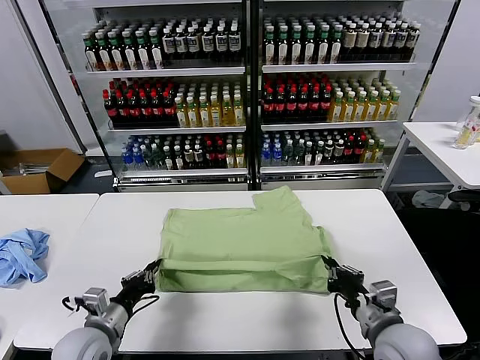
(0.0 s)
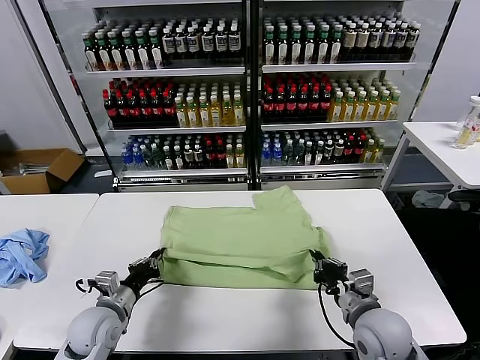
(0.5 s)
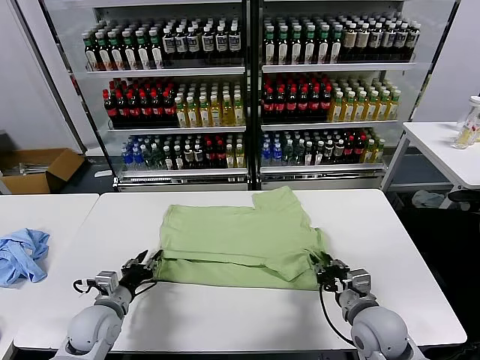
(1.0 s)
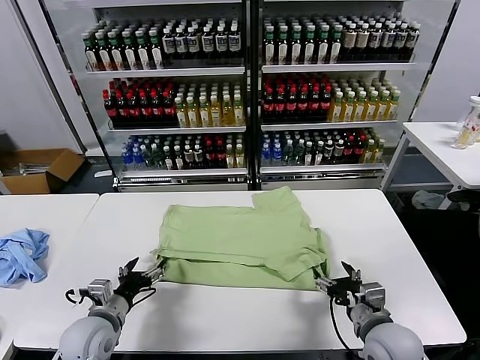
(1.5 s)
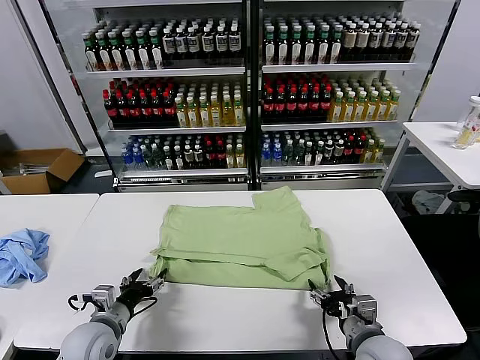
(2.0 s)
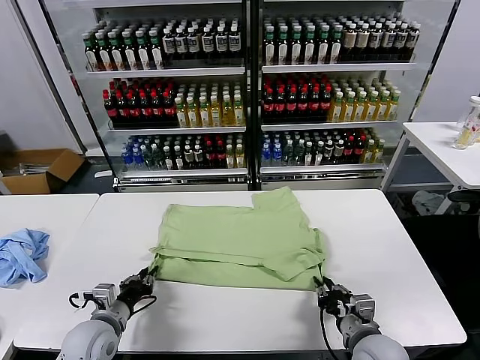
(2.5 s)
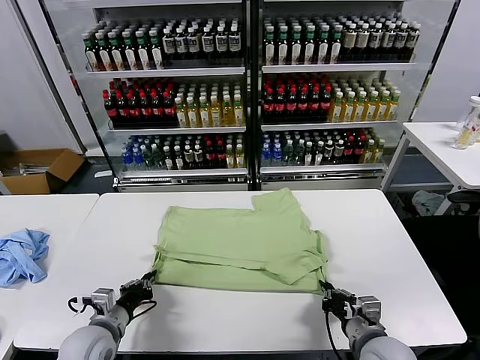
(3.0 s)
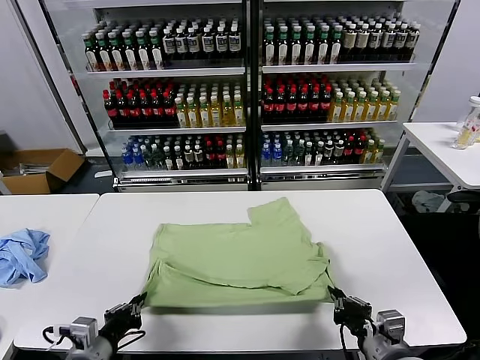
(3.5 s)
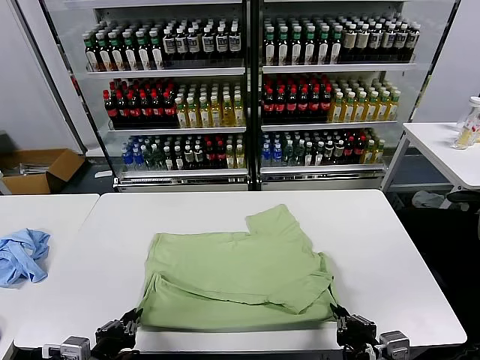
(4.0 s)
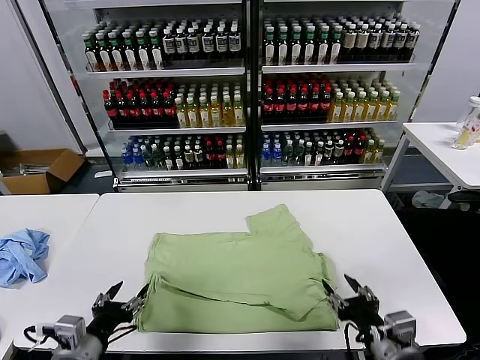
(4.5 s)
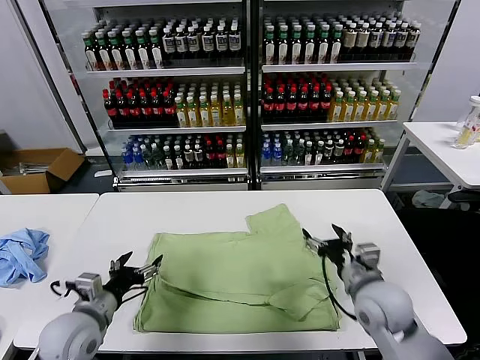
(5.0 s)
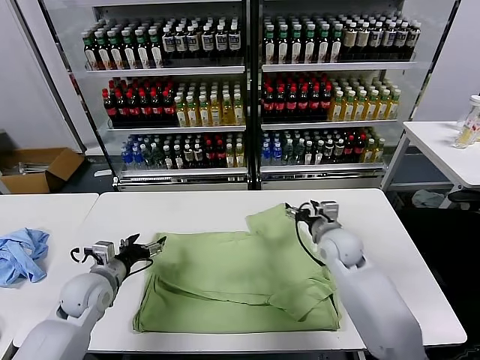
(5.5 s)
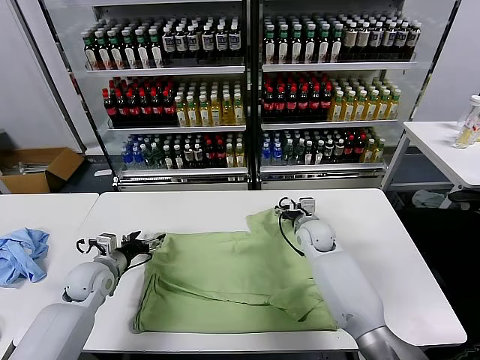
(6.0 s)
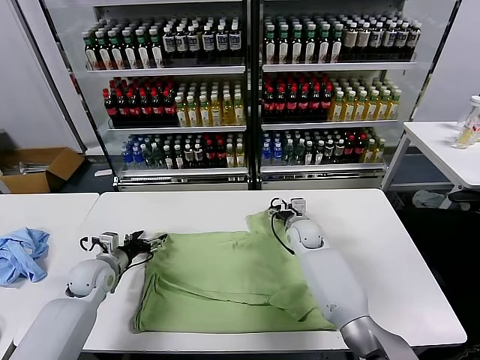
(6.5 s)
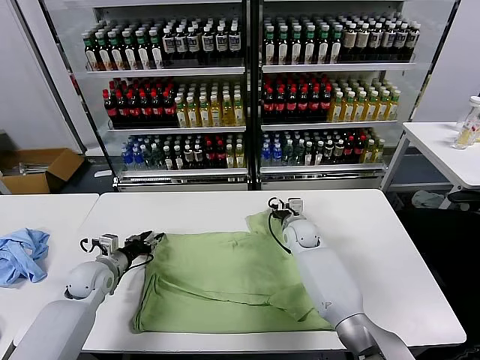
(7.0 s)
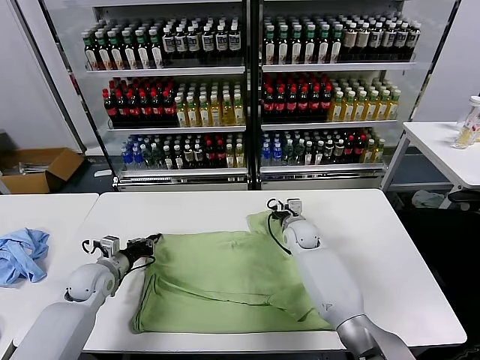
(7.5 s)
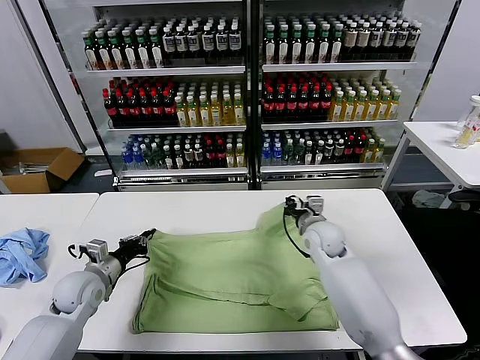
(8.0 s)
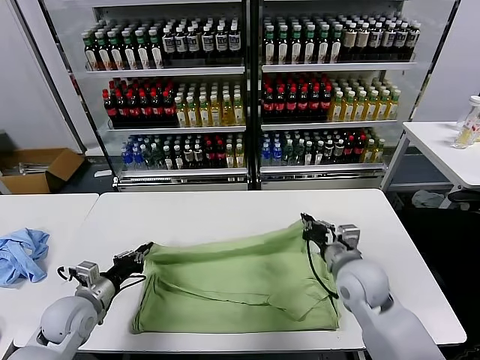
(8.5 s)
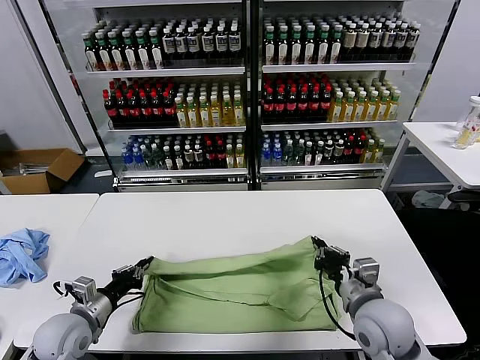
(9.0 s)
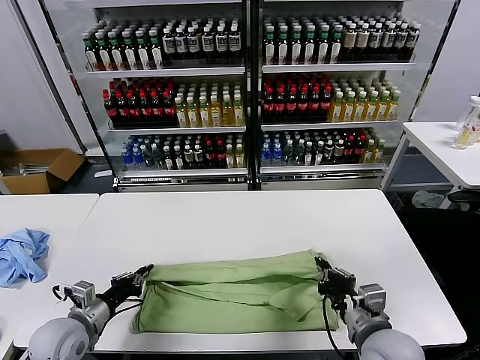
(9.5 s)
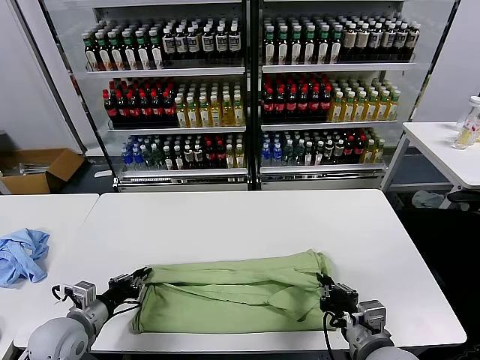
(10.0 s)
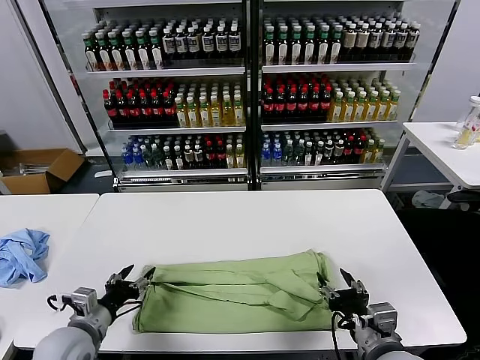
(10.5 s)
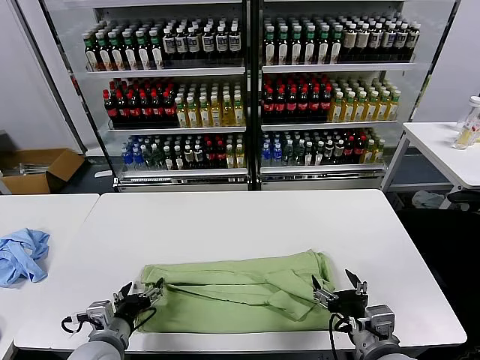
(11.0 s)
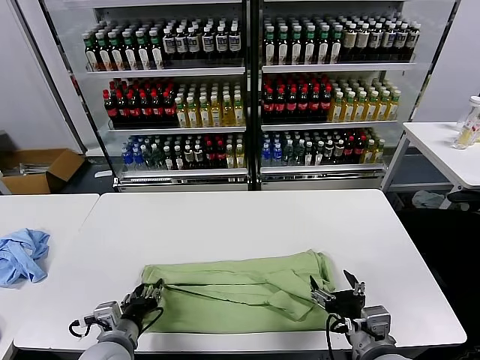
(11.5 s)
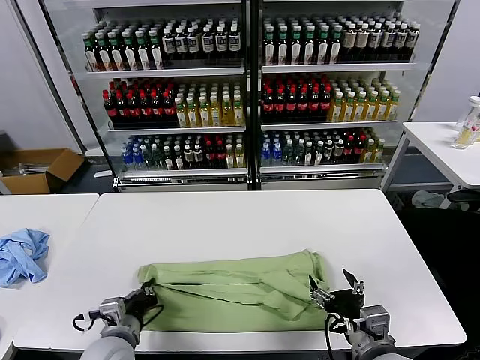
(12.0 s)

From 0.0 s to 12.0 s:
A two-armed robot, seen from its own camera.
Task of the whole recording: fold and organize the clothes.
Step, from 1.5 s to 4.0 s: Drag the clothes downward with both gripper.
Step, from 4.5 s to 7.0 s: use both grippers simultaneously to clamp the upper edge of the clothing fabric.
Step, from 7.5 s to 10.0 s: use both grippers to drag the upper edge of the fabric backward and fold it over the lower edge.
Step, from 10.5 s to 11.5 s: use the left gripper to clamp the left edge of the fabric.
From 0.0 s to 2.0 s: The right gripper opens; the left gripper opens up.
From 2.0 s to 4.0 s: Both grippers move backward and upward, roughly 10 cm. The right gripper closes up. Meanwhile the left gripper closes.
From 4.0 s to 6.0 s: Both grippers travel together forward, about 30 cm. The left gripper opens up. The right gripper opens its fingers.
From 6.0 s to 8.0 s: The left gripper closes its fingers; the right gripper goes about 10 cm backward and upward, and closes.
From 8.0 s to 10.0 s: The left gripper goes about 10 cm backward. The right gripper shifts roughly 25 cm backward.
From 10.0 s to 12.0 s: The right gripper opens its fingers; the left gripper goes approximately 10 cm to the right, and opens, then closes once more.

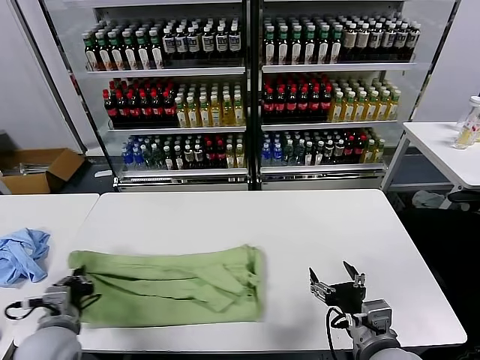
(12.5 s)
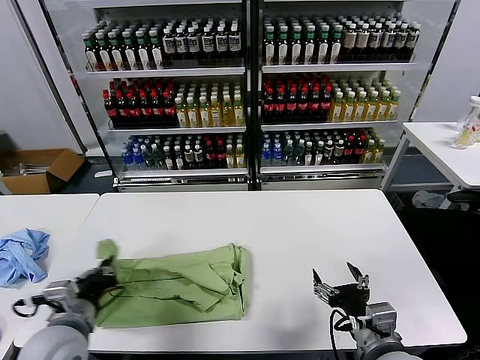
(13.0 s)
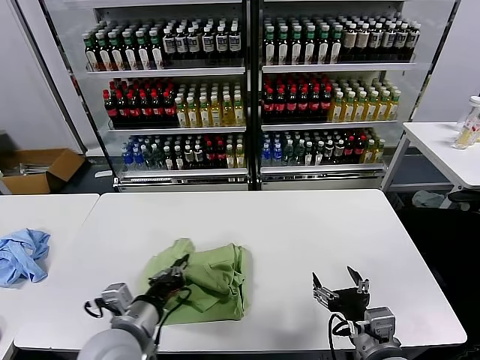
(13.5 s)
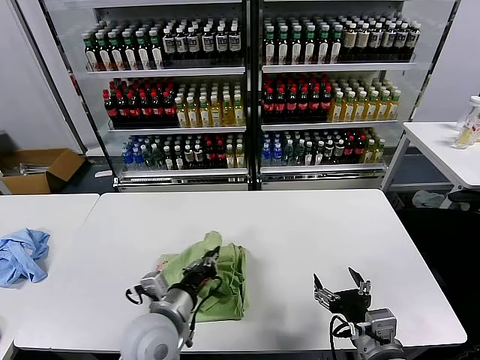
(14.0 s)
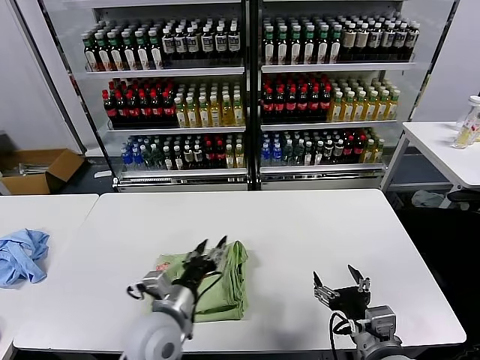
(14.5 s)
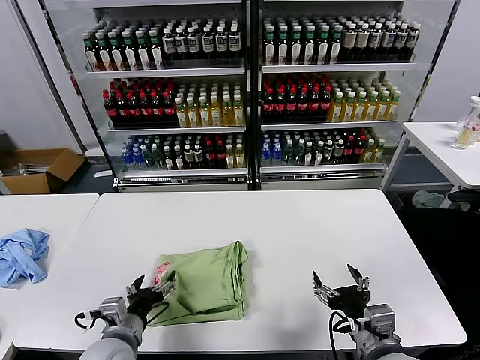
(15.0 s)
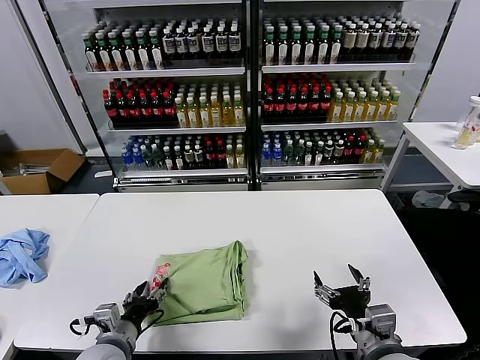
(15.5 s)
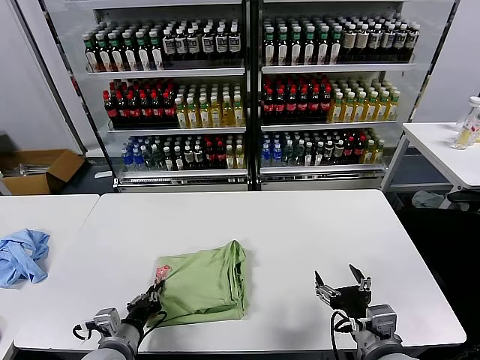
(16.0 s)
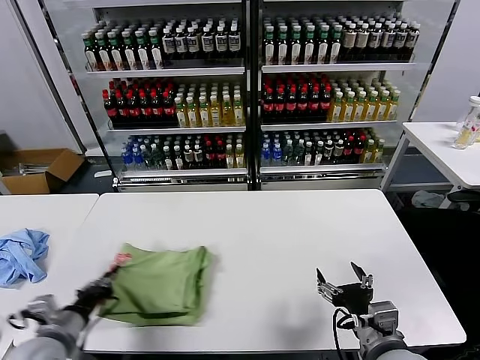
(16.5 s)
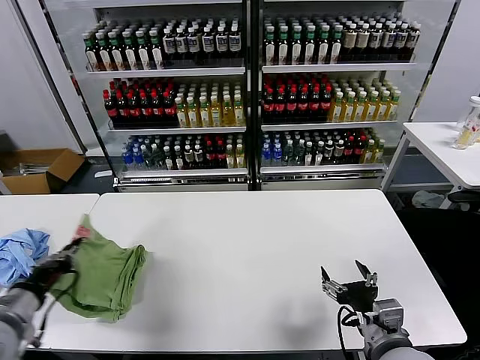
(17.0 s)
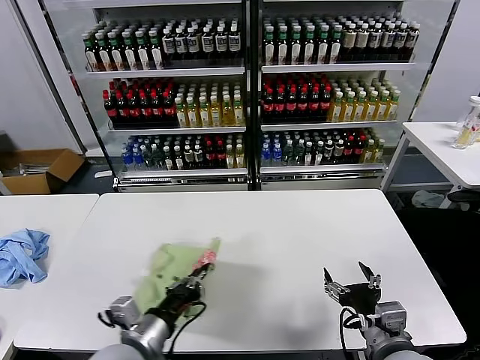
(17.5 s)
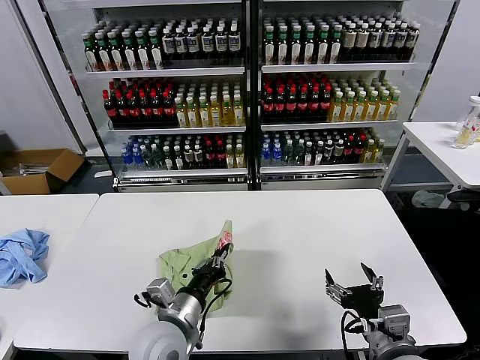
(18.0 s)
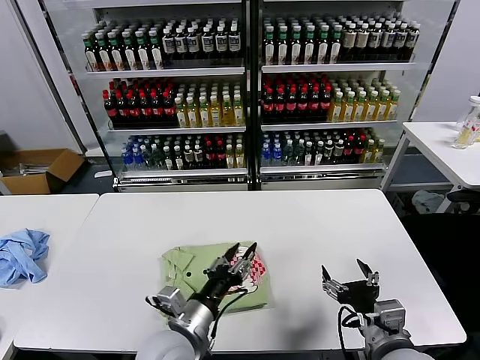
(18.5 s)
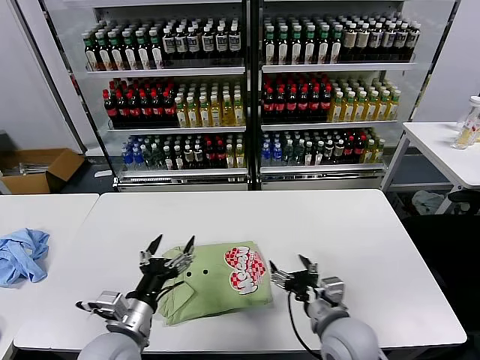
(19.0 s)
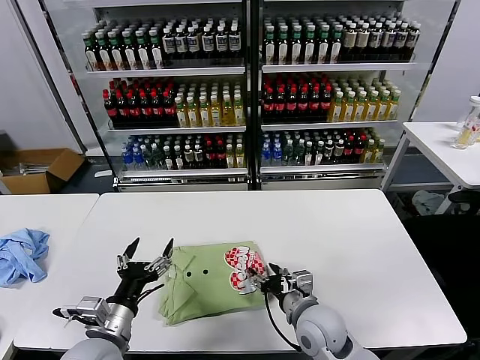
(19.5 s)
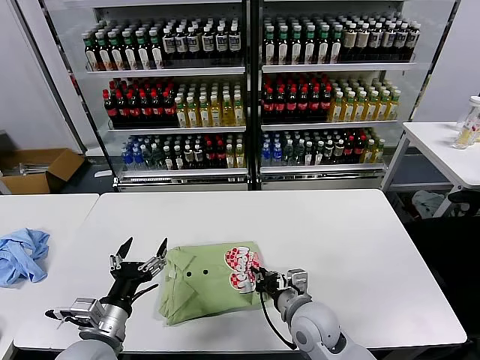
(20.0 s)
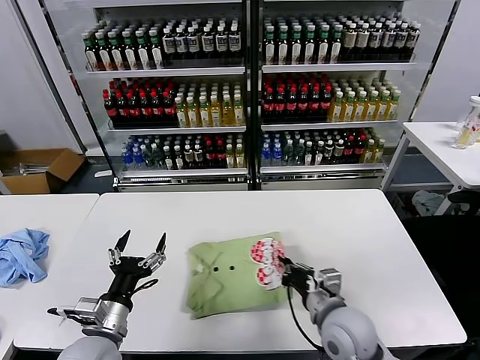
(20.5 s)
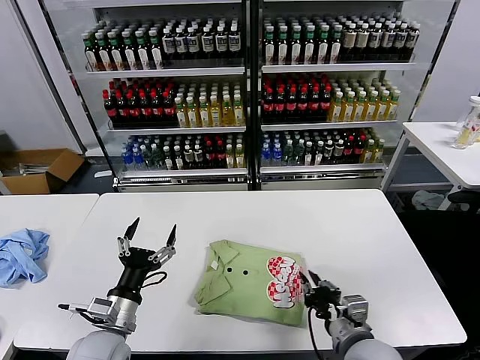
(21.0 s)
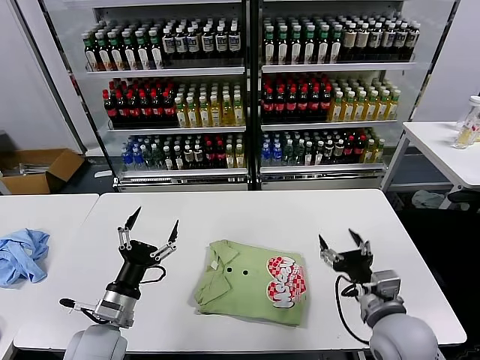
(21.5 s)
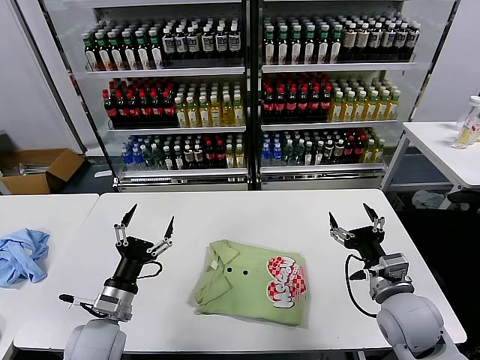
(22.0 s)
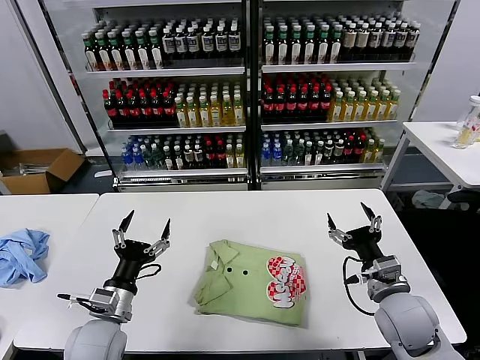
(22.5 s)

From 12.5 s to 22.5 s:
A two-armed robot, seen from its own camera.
Task of the whole recording: fold and organize the clothes.
Step, from 12.5 s to 14.0 s: use the left gripper to drag the left edge of the fabric to the left and folds it over the right edge.
Step, from 14.5 s to 18.0 s: Flip the folded clothes over with left gripper.
Step, from 18.5 s to 21.0 s: Drag the clothes to the center of the table.
From 12.5 s to 14.5 s: The left gripper is displaced to the right by roughly 20 cm, and opens up.
From 14.5 s to 16.5 s: The left gripper travels to the left by approximately 20 cm, and closes its fingers.
From 16.5 s to 18.5 s: The left gripper heads to the right, covering roughly 25 cm, and opens.
From 18.5 s to 20.5 s: The right gripper is displaced forward and to the left by approximately 10 cm, and closes its fingers, while the left gripper heads to the left, covering roughly 15 cm, and opens up.
From 20.5 s to 22.5 s: The right gripper heads to the right, covering approximately 10 cm, and opens its fingers.
